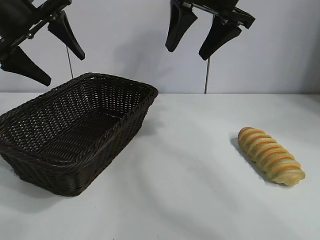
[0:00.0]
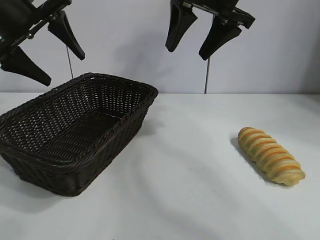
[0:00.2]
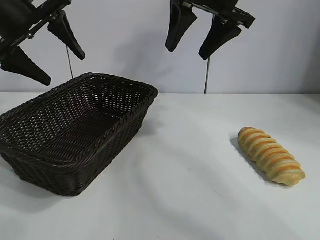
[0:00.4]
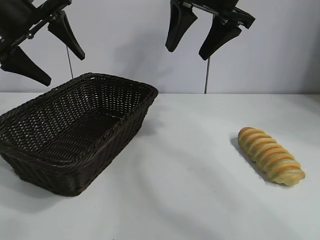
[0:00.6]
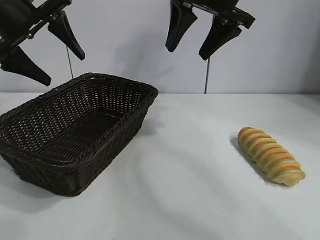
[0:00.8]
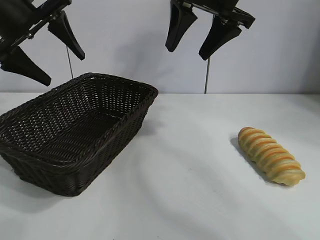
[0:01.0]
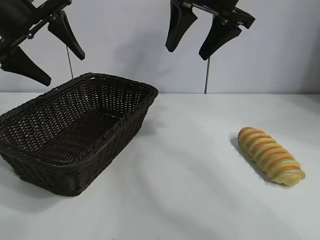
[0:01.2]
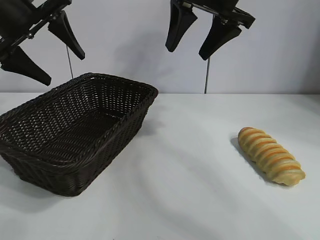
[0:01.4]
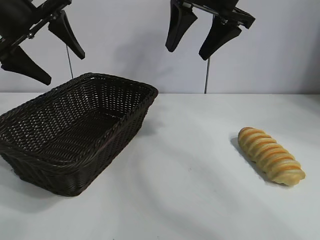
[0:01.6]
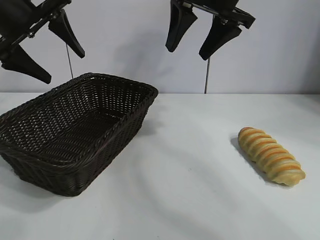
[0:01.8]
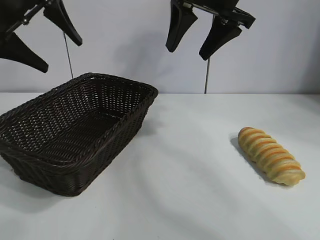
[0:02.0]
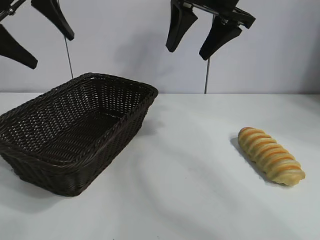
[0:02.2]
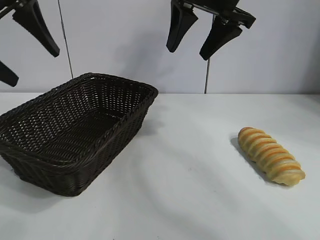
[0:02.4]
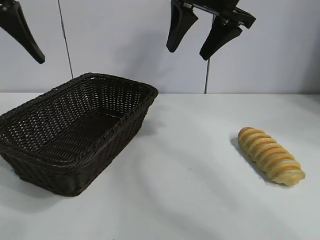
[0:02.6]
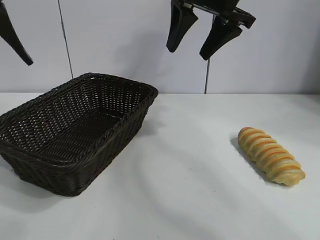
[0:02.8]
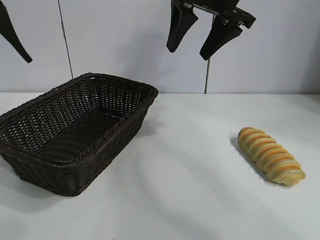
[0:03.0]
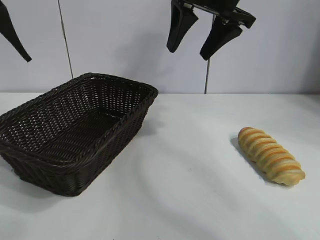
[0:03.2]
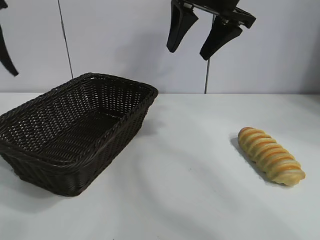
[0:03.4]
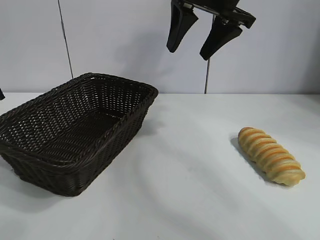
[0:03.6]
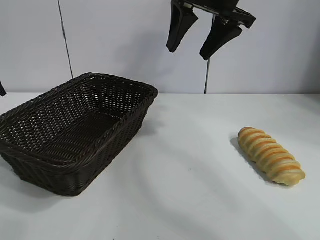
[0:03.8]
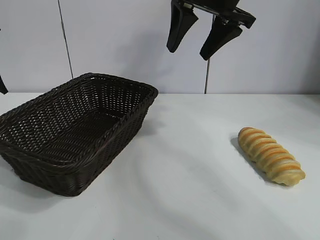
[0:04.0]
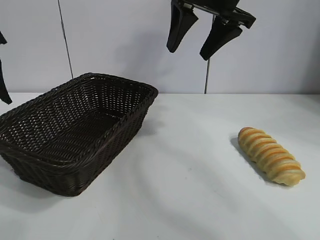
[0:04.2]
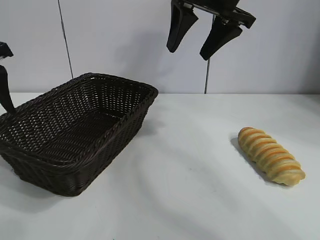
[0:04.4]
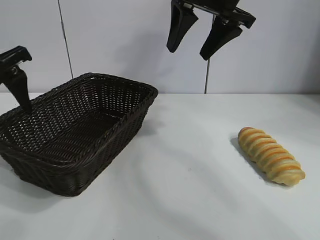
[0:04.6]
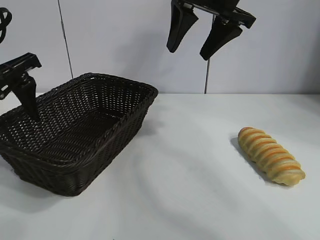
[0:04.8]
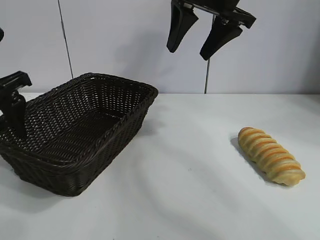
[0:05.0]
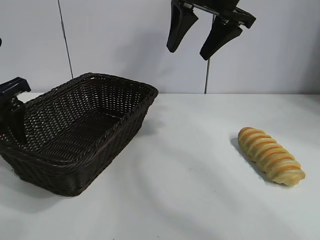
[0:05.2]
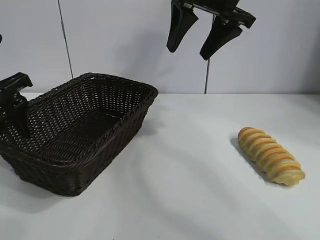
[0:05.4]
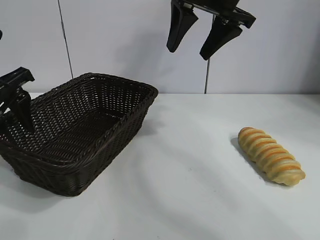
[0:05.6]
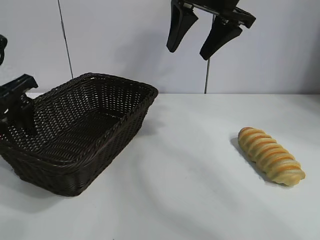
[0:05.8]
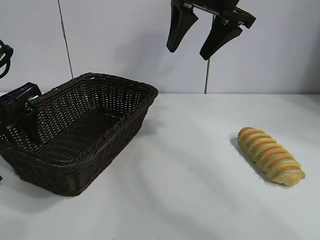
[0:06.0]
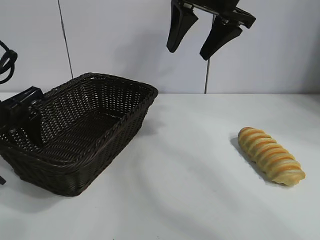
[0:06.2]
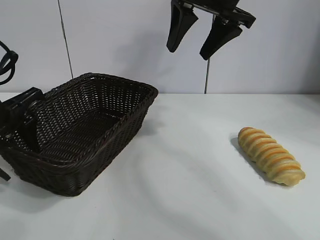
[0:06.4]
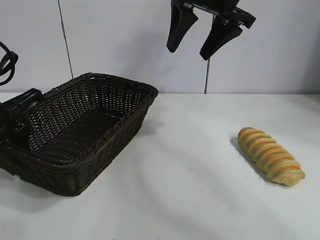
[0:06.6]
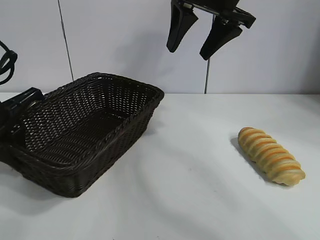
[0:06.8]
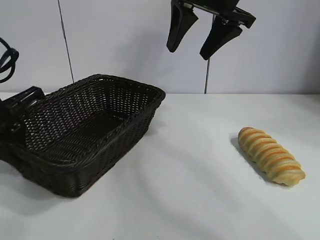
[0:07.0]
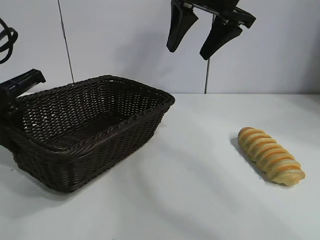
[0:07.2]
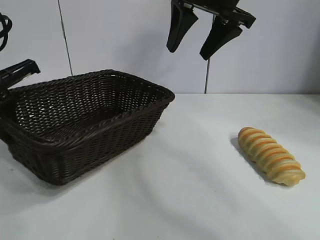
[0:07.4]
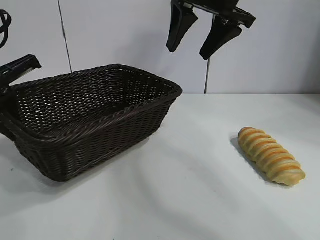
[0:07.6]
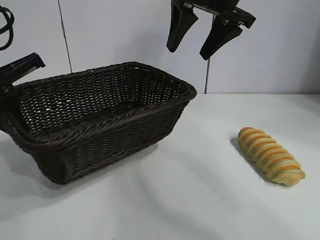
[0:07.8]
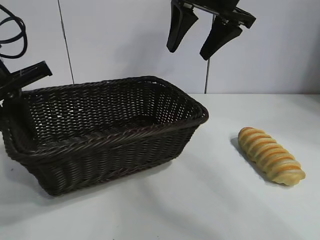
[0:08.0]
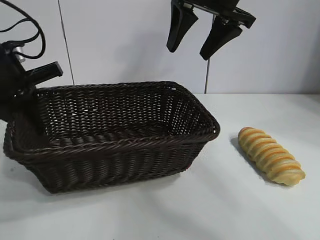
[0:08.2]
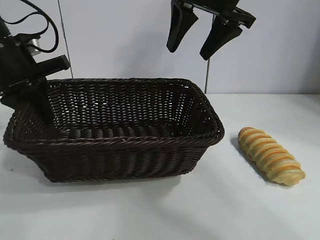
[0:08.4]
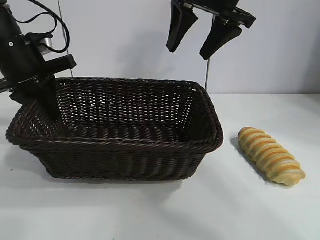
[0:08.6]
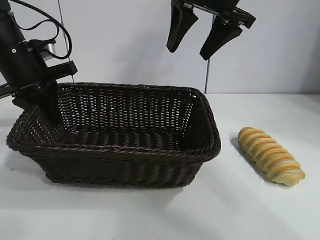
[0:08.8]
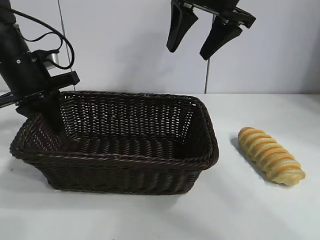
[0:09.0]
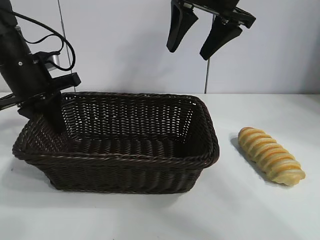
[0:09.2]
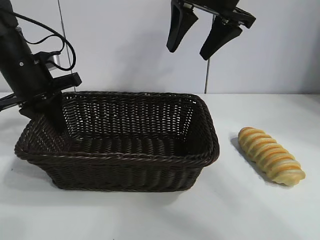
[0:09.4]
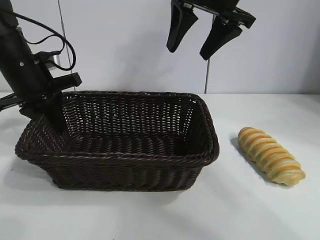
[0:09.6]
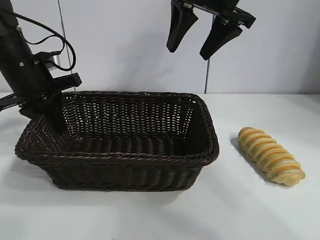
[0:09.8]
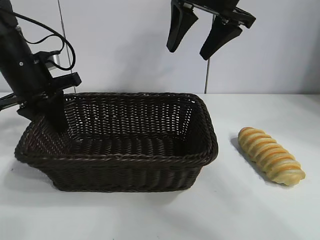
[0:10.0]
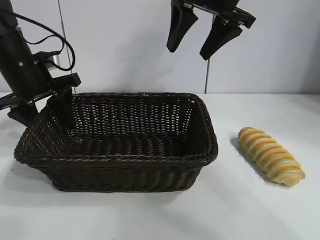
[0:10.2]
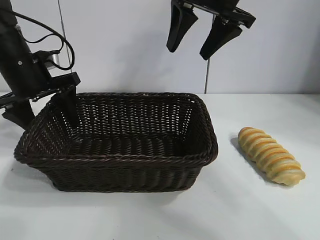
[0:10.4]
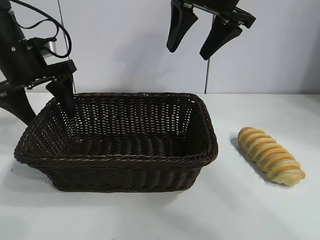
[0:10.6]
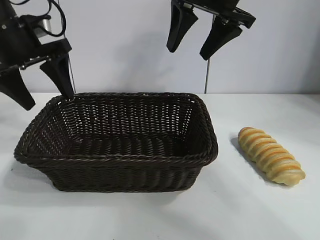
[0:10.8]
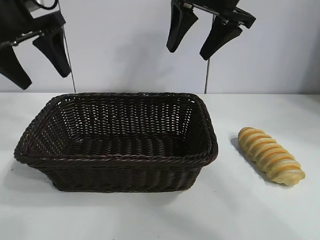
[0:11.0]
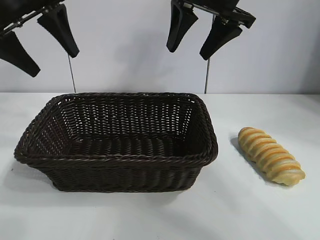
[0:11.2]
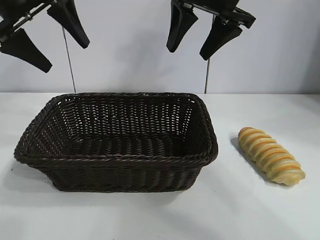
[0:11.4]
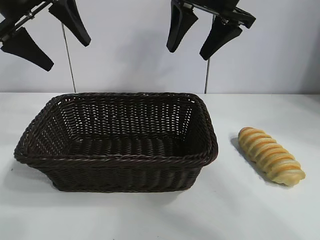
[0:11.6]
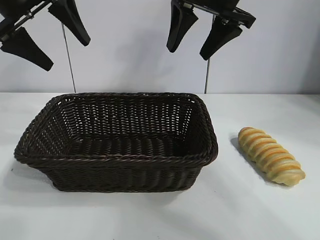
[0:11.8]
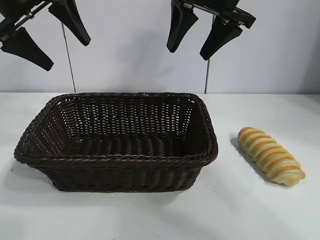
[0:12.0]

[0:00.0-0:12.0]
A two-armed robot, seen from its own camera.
Task of the whole recording: pick up the long bread and put it into the basket.
Step, 0:01.8 to 0:06.6: Grasp the basket with the left gripper.
Step, 0:07.0 to 0:10.4: Place the basket in the center of the table with the left gripper.

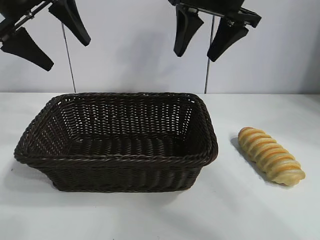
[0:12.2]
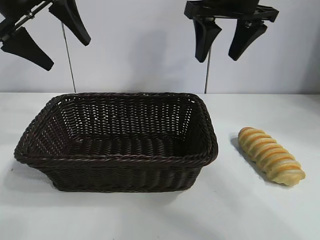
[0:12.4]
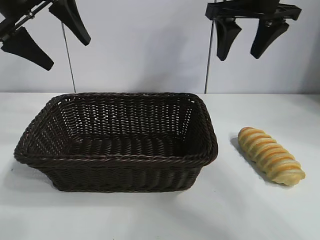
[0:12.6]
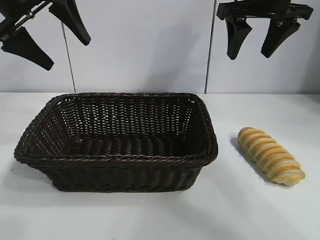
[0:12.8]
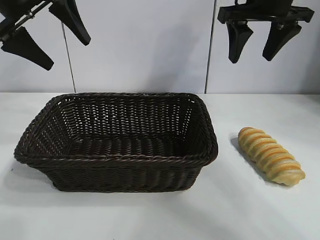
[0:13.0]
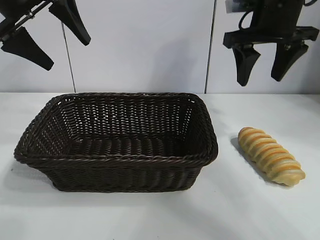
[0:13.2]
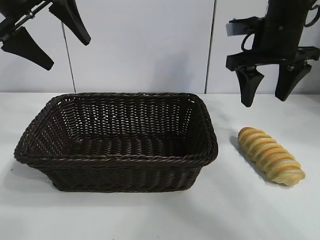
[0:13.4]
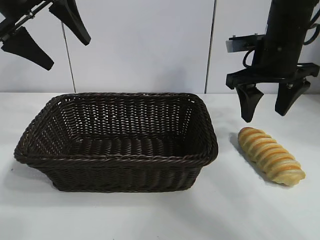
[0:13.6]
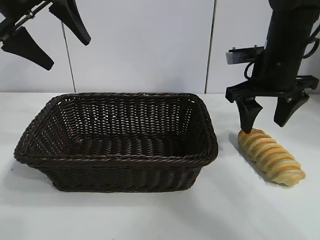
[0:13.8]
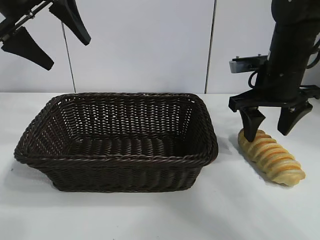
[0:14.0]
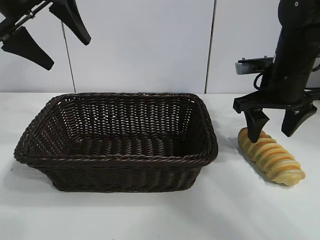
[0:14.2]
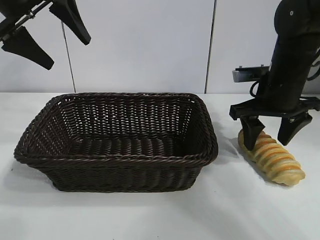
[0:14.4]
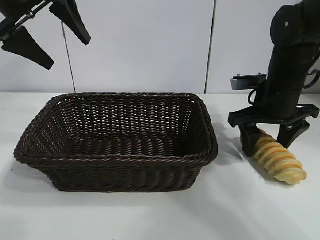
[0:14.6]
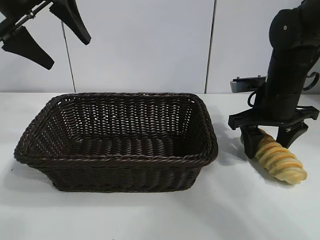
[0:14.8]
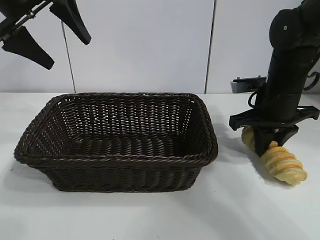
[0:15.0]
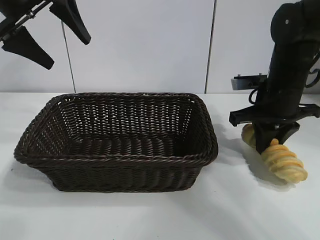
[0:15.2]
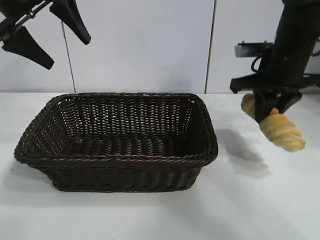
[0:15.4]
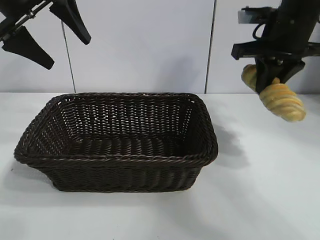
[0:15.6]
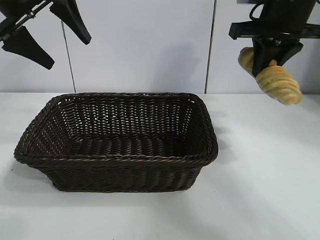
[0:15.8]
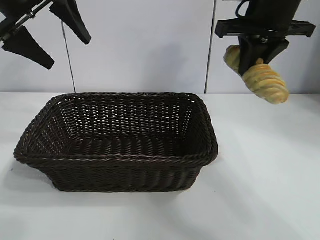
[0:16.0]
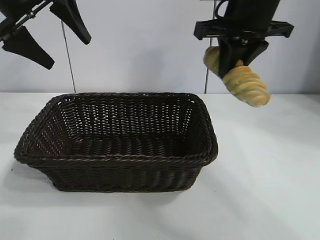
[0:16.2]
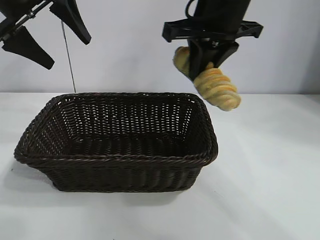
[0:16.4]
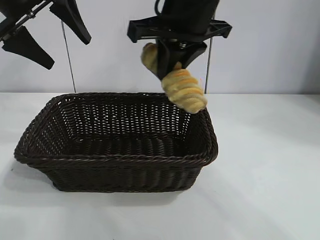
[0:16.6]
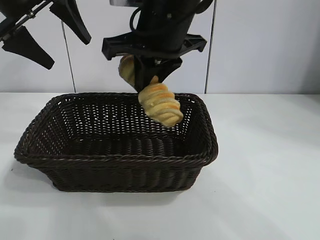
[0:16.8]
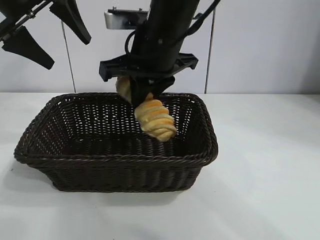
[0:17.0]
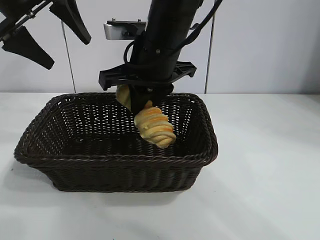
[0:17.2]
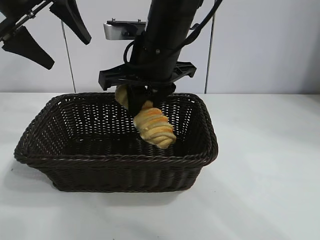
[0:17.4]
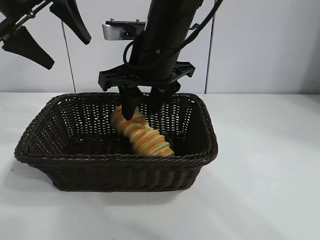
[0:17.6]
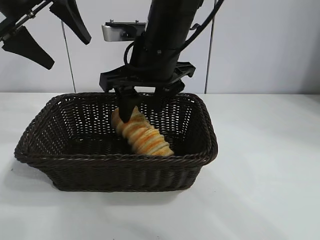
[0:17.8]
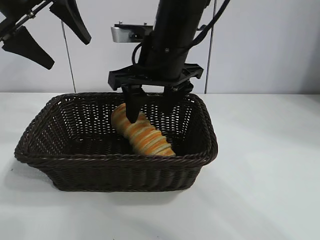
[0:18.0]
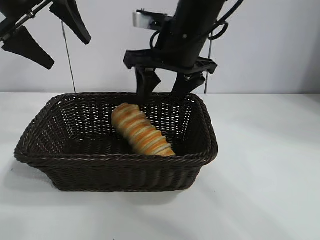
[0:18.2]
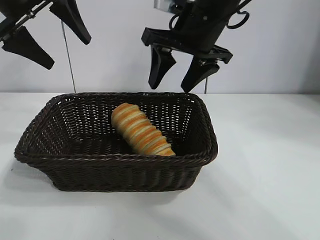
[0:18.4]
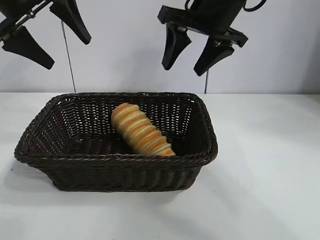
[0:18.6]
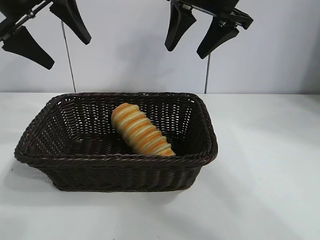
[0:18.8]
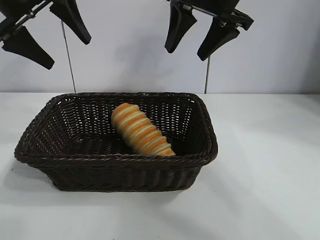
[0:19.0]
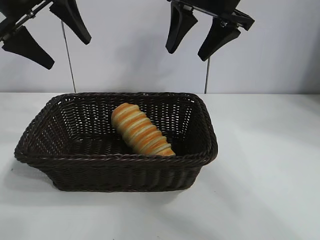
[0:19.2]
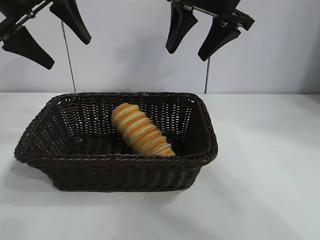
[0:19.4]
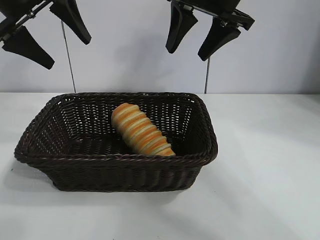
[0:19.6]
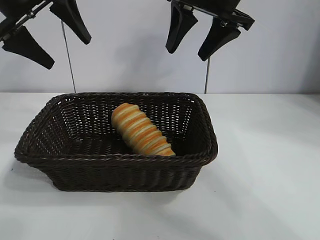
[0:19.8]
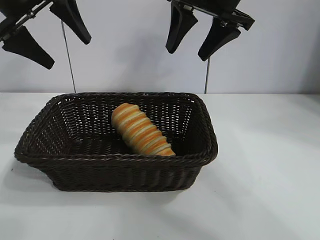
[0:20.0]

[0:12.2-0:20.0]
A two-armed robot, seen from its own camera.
Task of the whole recording: pick up the long bread and put it into the basket.
Step, 0:12.2 to 0:15.0: Grasp the long bread with right gripper.
Step, 0:15.2 to 0:18.0: Place the long bread in the basket with right gripper.
